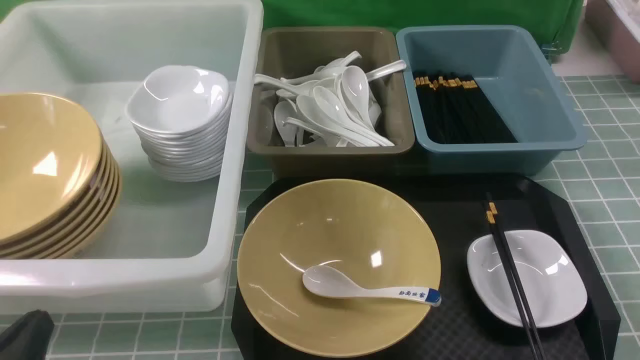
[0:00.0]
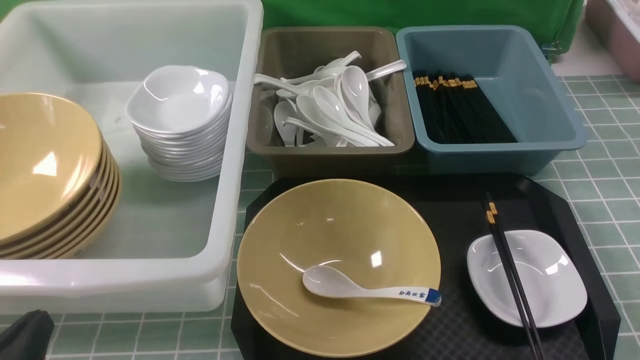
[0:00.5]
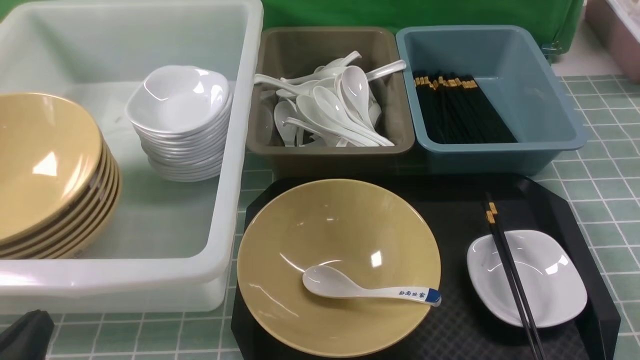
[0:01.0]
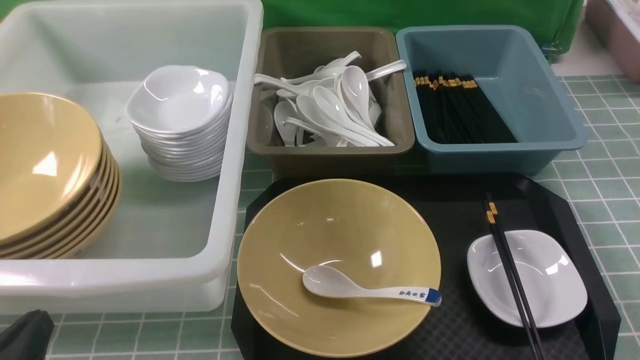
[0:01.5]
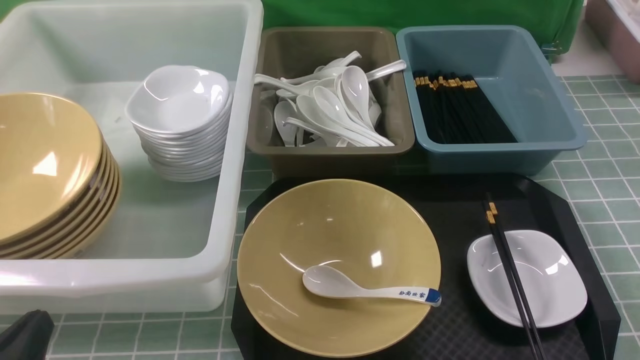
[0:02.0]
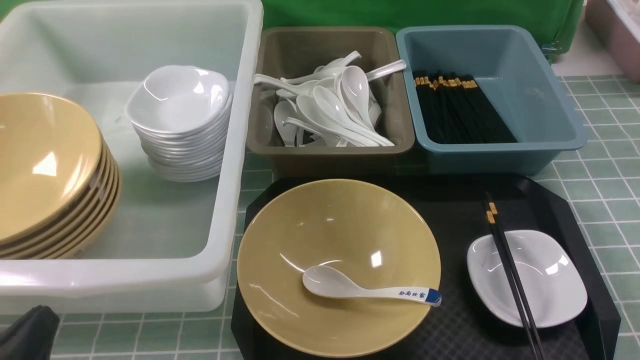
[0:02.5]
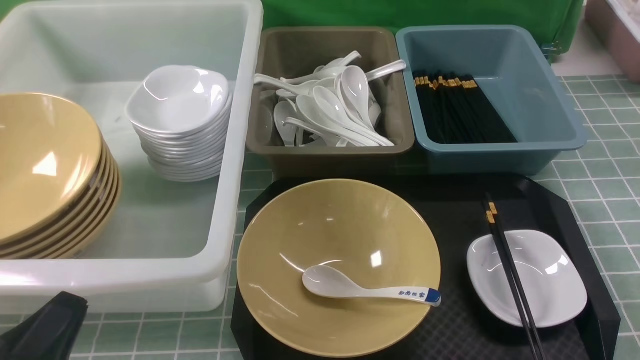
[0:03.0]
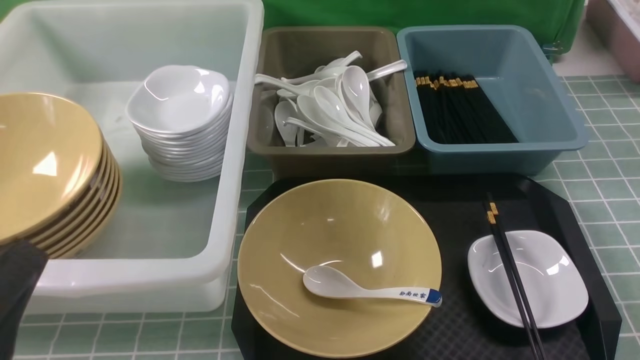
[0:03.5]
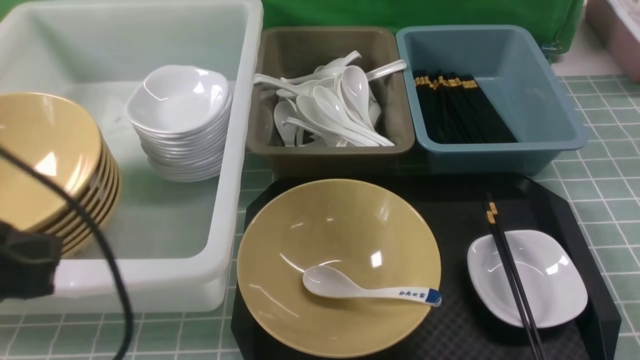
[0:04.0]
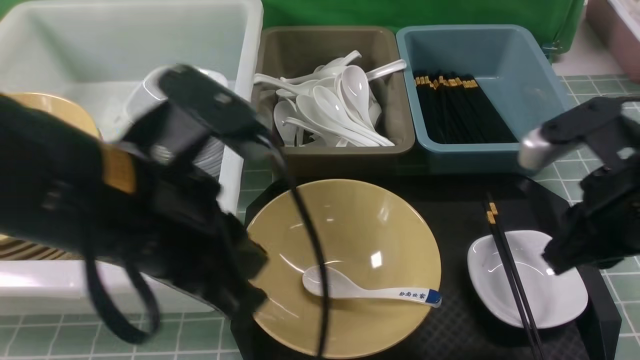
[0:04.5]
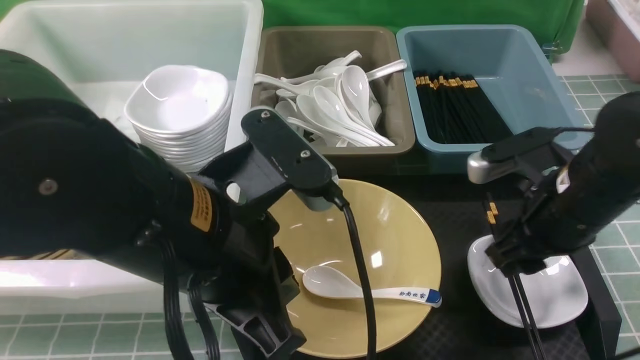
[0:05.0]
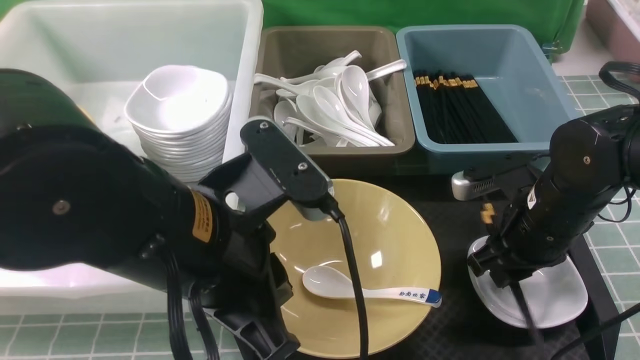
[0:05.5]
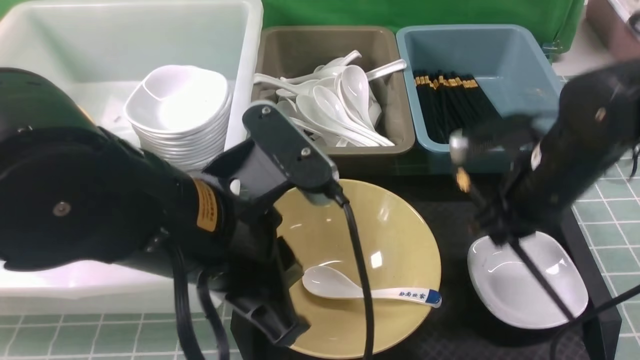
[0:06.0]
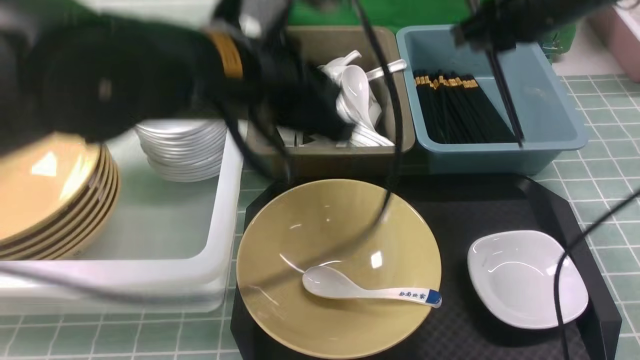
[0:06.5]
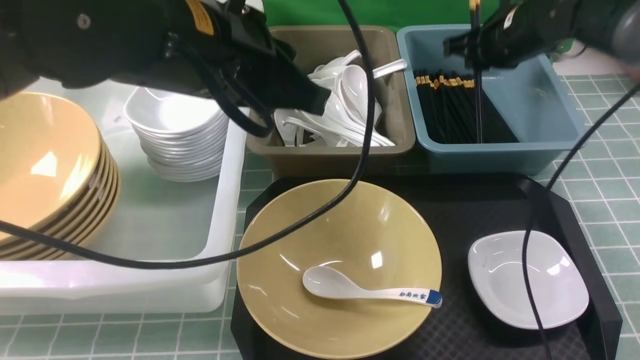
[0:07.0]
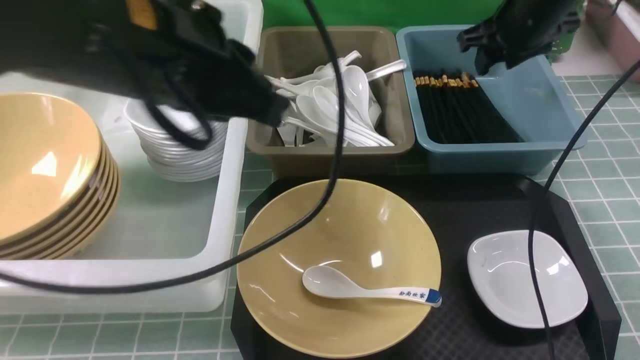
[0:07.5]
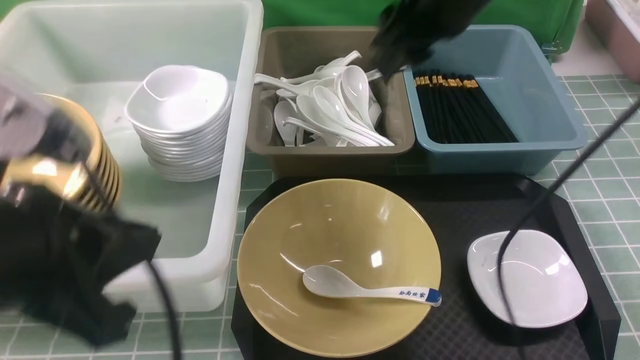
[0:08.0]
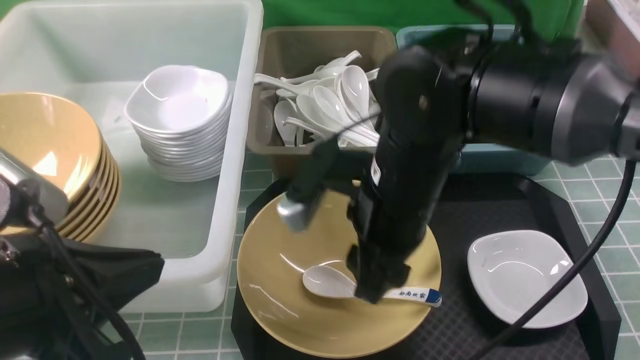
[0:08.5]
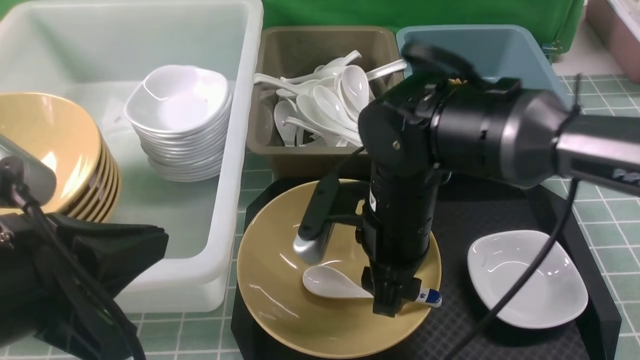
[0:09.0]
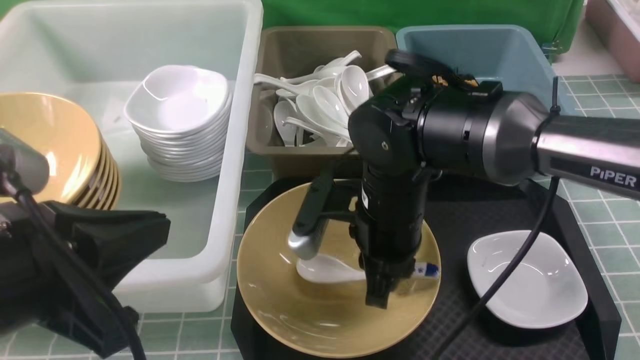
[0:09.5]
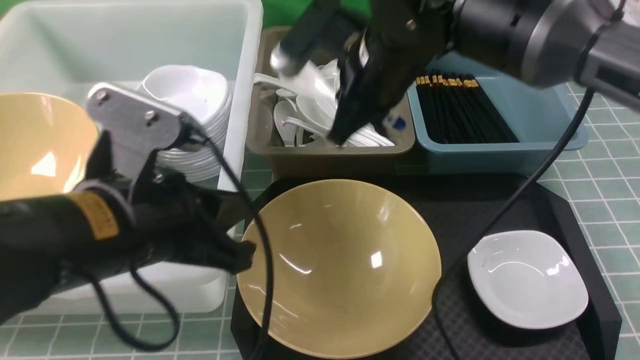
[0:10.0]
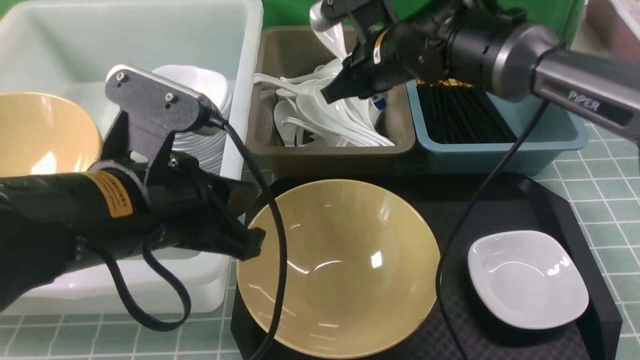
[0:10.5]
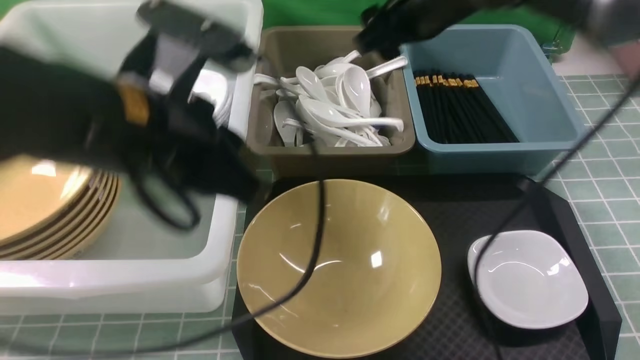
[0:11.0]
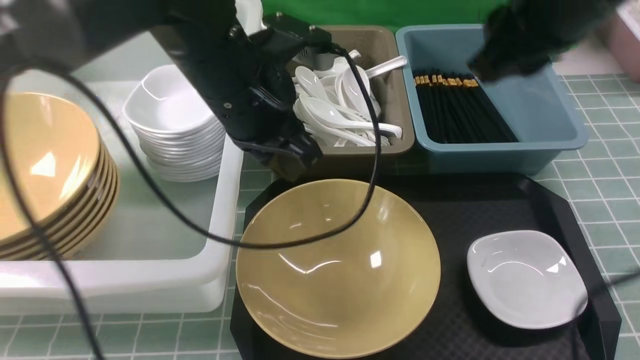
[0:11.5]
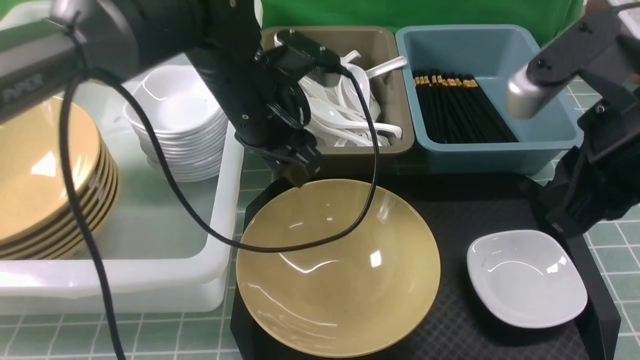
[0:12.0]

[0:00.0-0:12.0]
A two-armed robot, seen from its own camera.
Task of the whole recording: on blue table put chopsticks spoon bowls plates into blue grey white boxes.
Step, 0:00.0 to 0:05.5: use the right arm to grab the chopsticks.
Step, 0:06.0 to 0:07.5: use the right arm to put the chopsticks into the small storage box on the right.
Step, 0:08.0 to 0:09.5: use the right arm to grab the soup spoon in the middle.
Step, 0:10.0 to 0:10.5: use the right arm to put the soup spoon into the small storage box in the middle.
0:00.0 to 0:02.0: Neither gripper changes place.
0:02.0 to 0:04.0: The left gripper travels upward and forward by about 20 cm.
0:04.0 to 0:06.0: The right gripper is displaced forward, to the left and downward by about 20 cm, and opens, then closes once more; the left gripper is displaced to the right by approximately 15 cm.
0:06.0 to 0:08.0: The right gripper is displaced upward and to the left by approximately 15 cm, goes forward and returns, approximately 20 cm each way, and opens. Meanwhile the left gripper moves to the left and backward, roughly 10 cm.
0:08.0 to 0:10.0: The left gripper is displaced forward by some 5 cm. Meanwhile the right gripper shifts about 5 cm downward, and closes its fingers.
0:10.0 to 0:12.0: The right gripper moves backward and to the right, approximately 20 cm, and opens, then closes again. Meanwhile the left gripper is displaced forward and to the right by about 20 cm, and opens up.

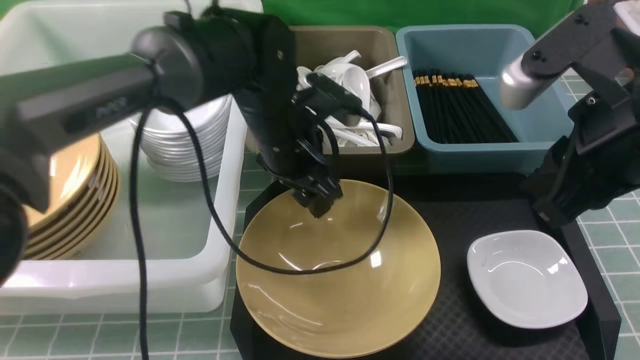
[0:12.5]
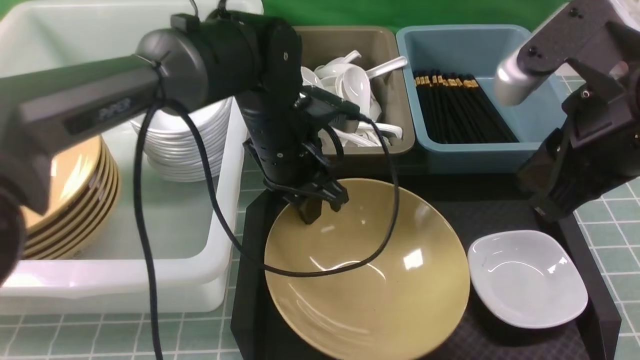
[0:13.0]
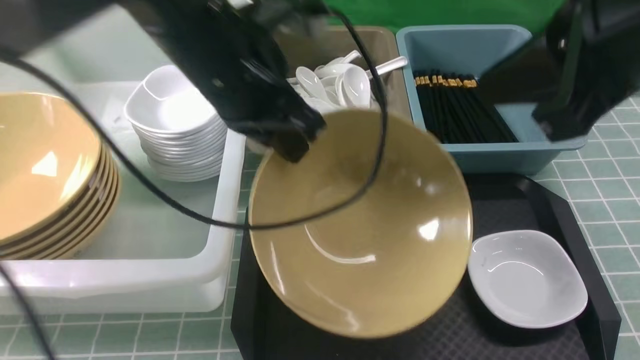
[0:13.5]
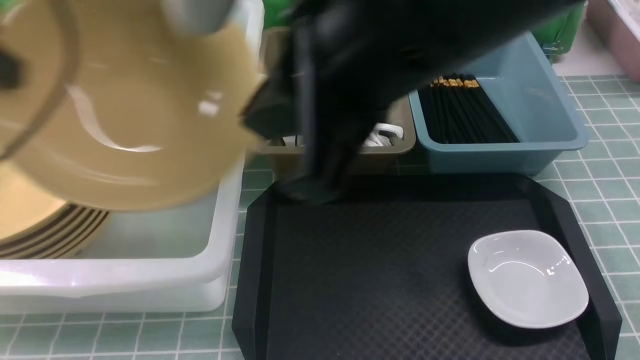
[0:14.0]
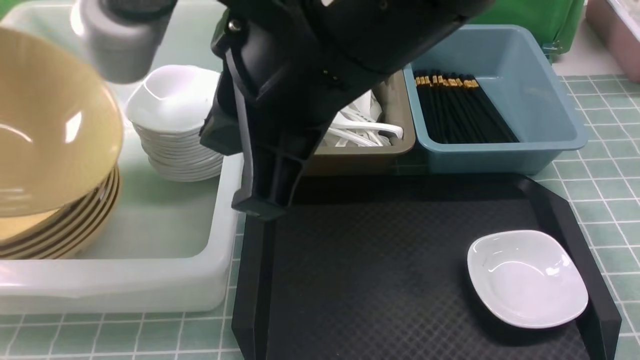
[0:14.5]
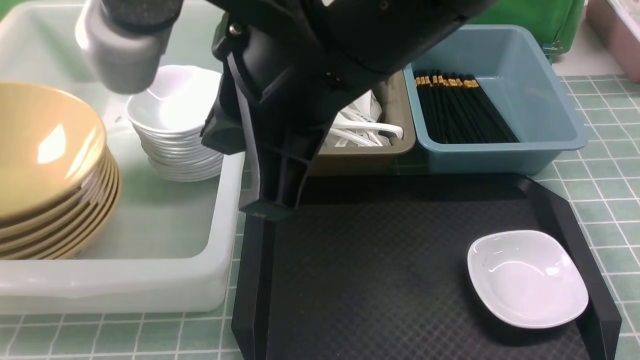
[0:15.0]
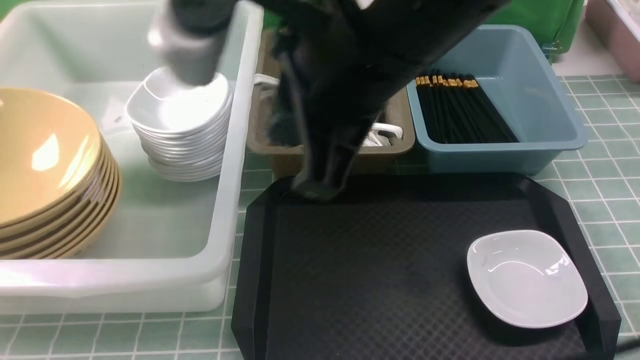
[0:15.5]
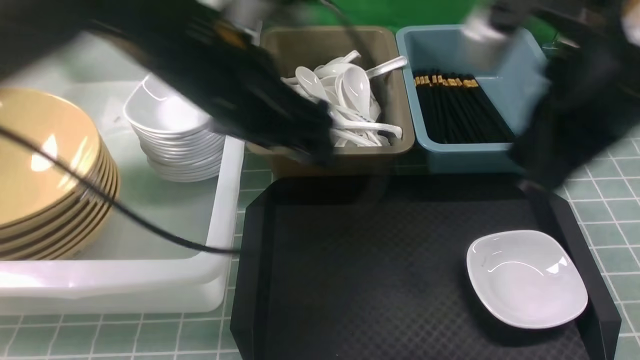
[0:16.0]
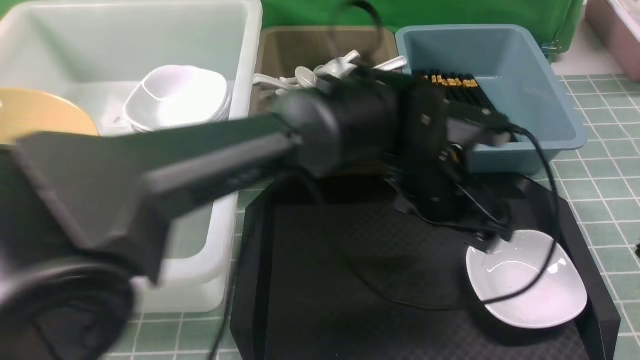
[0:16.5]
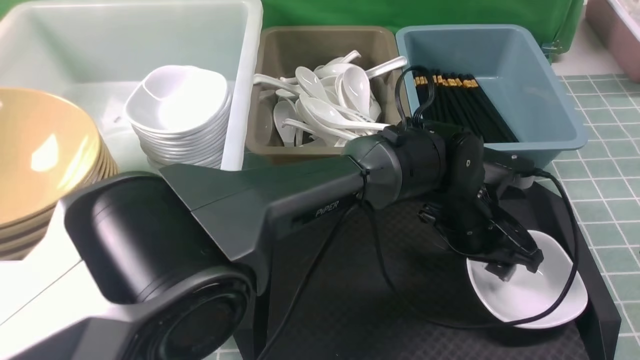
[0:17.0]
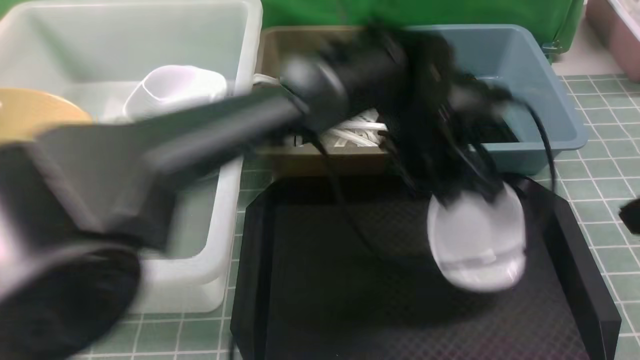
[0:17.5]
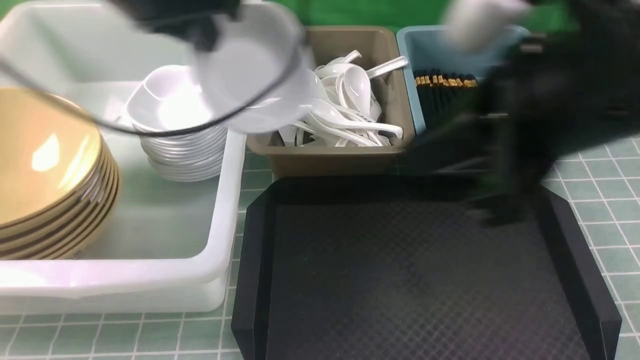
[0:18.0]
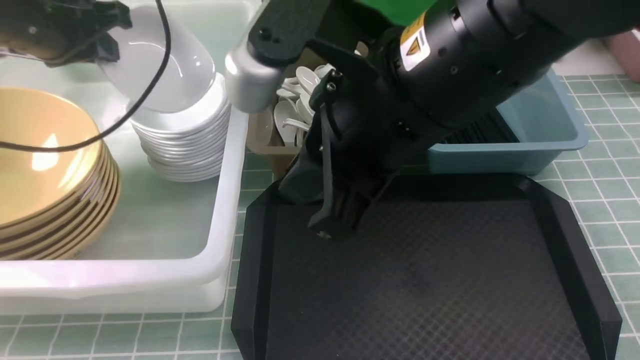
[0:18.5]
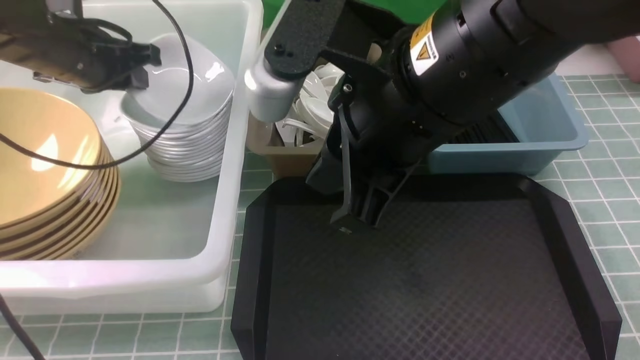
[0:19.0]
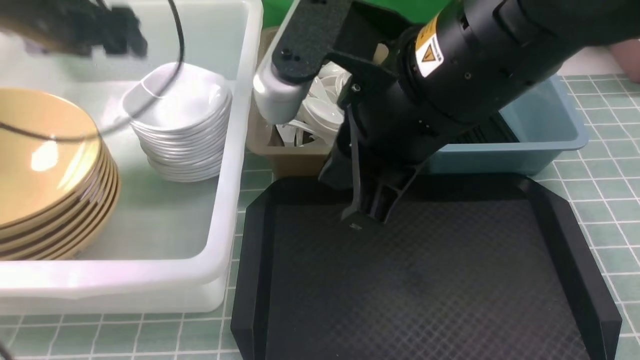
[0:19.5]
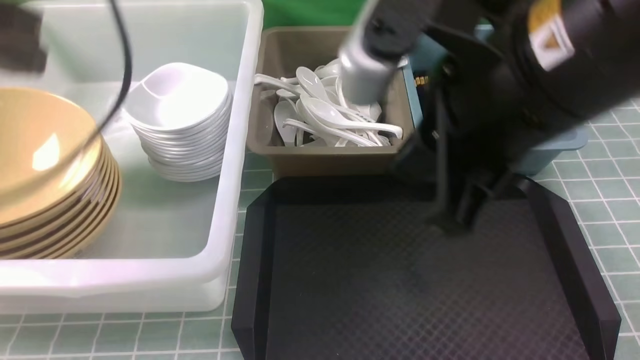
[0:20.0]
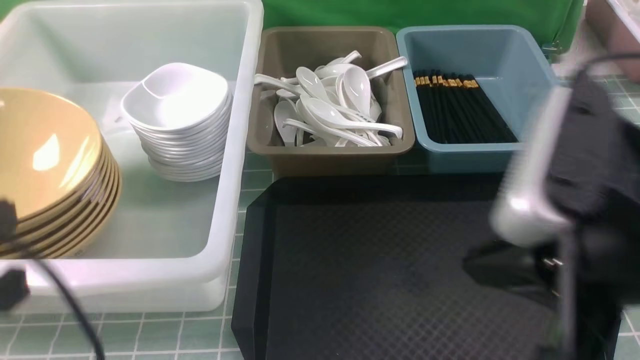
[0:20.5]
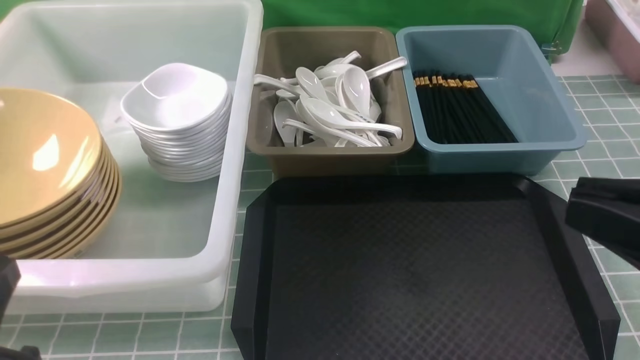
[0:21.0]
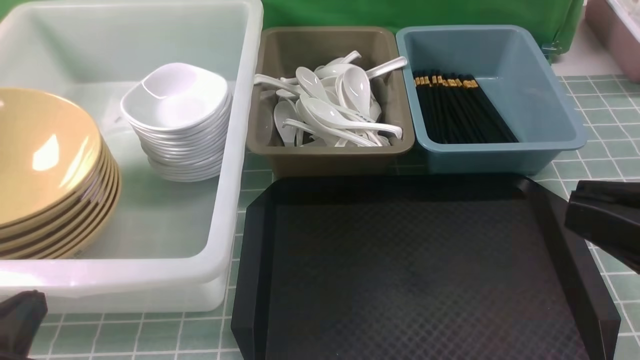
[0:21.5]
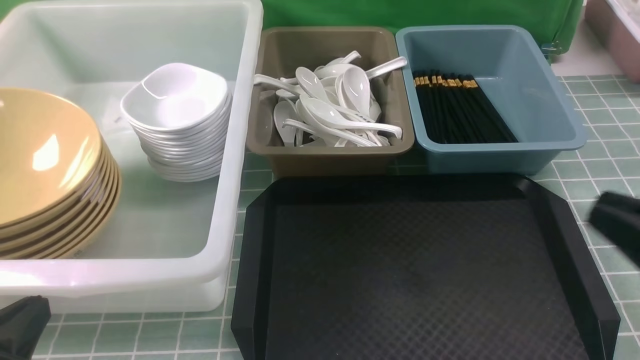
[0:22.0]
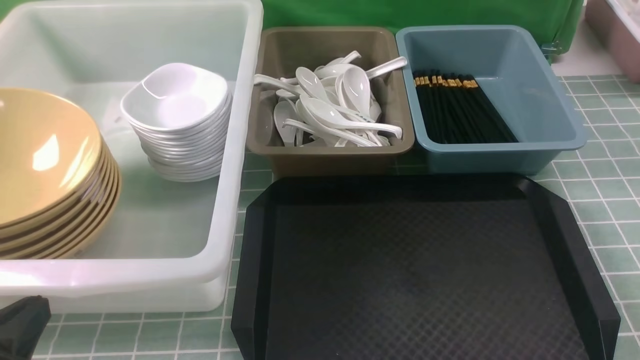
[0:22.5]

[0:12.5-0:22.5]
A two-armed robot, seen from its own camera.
Task of the whole recording: on blue table put chopsticks spoon bowls plates into blue grey white boxes.
Step, 0:13.5 to 0:15.0: use the left arm to put the noodle bowl into the large storage box on the left.
Step, 0:15.5 to 0:17.5: use the left arm to grab the plate.
Step, 0:18.0 to 0:19.0: use the left arm to put the plate into the large storage box on the left.
0:12.5 to 0:14.5: The right gripper is displaced to the left and upward by some 20 cm. The left gripper shifts some 40 cm to the left, upward and backward, and closes up.
0:14.5 to 0:16.5: The right gripper is displaced to the right by approximately 25 cm, while the left gripper goes approximately 50 cm to the right, and opens its fingers.
0:16.5 to 0:18.5: The right gripper goes about 20 cm to the left; the left gripper travels to the left by about 35 cm, and closes.
0:18.5 to 0:20.5: The right gripper goes about 15 cm to the right and backward. The left gripper shifts approximately 30 cm backward, and opens, then closes again.
0:20.5 to 0:22.5: The left gripper travels downward by roughly 10 cm. The right gripper heads downward and to the right, covering some 20 cm.
